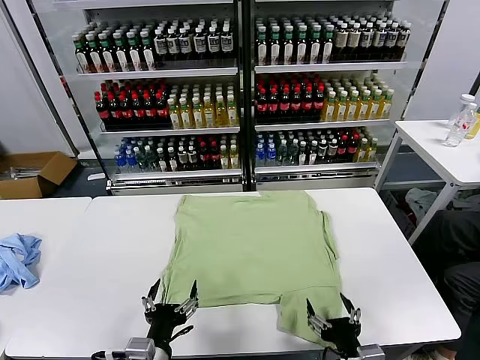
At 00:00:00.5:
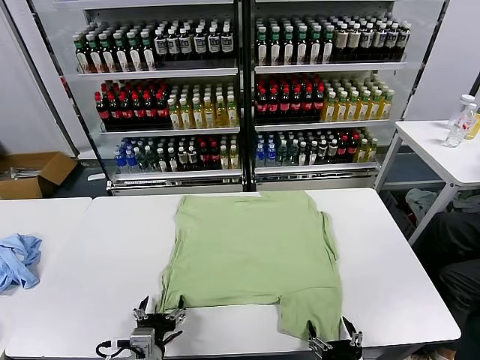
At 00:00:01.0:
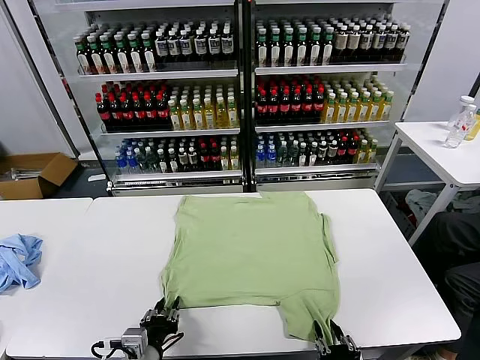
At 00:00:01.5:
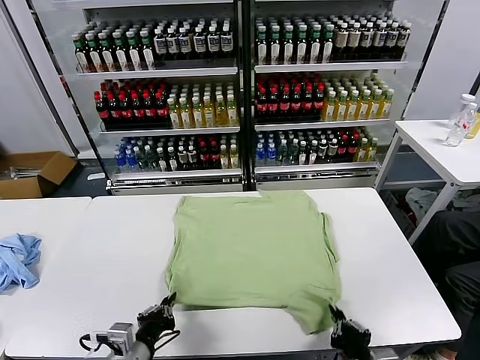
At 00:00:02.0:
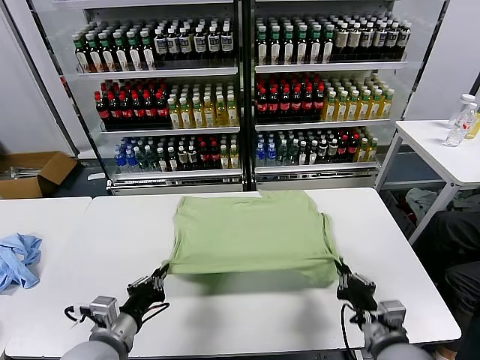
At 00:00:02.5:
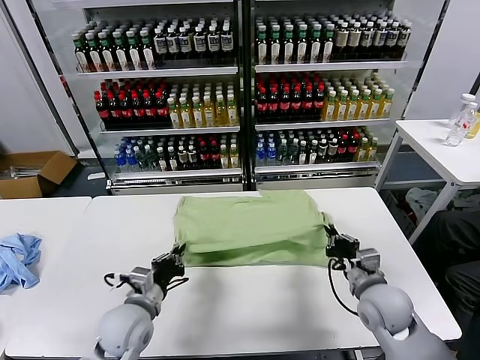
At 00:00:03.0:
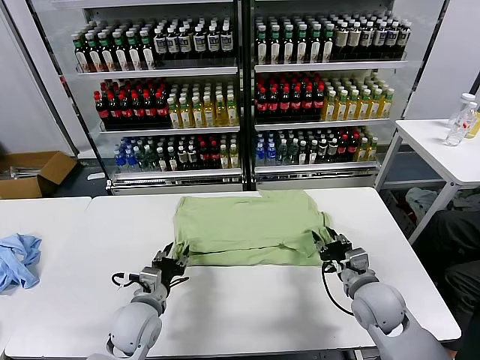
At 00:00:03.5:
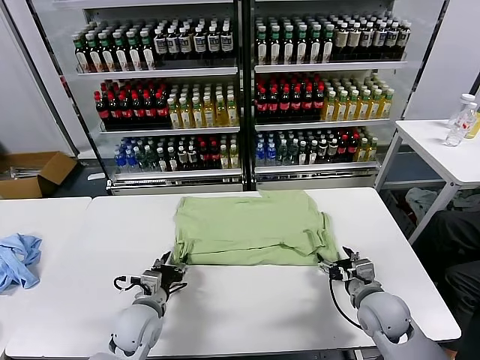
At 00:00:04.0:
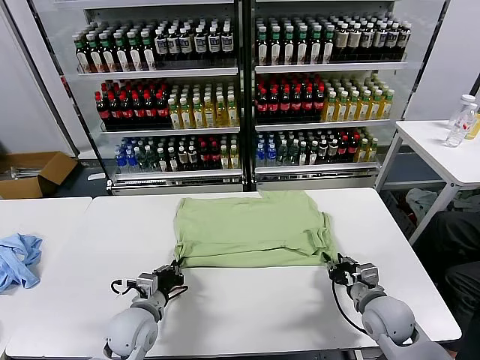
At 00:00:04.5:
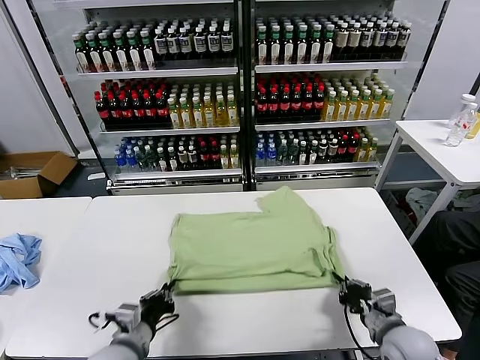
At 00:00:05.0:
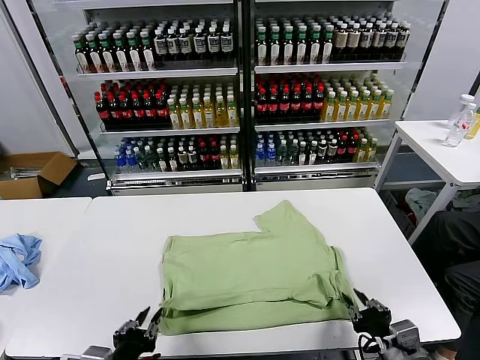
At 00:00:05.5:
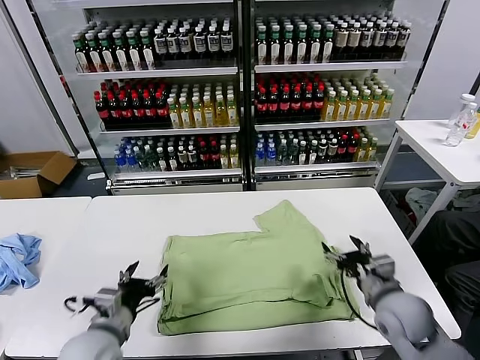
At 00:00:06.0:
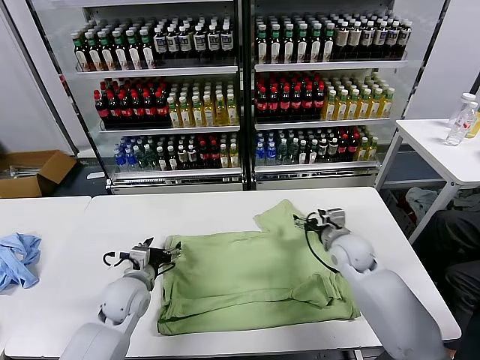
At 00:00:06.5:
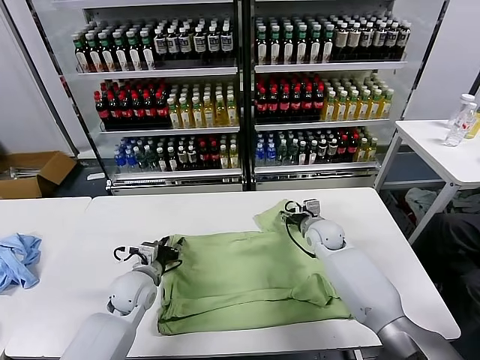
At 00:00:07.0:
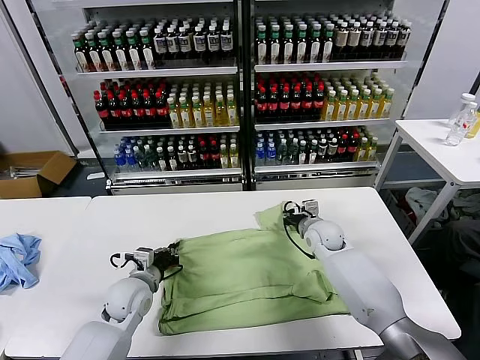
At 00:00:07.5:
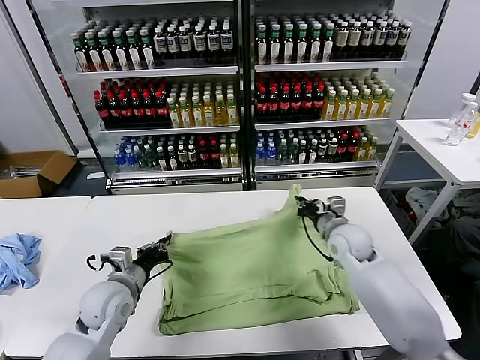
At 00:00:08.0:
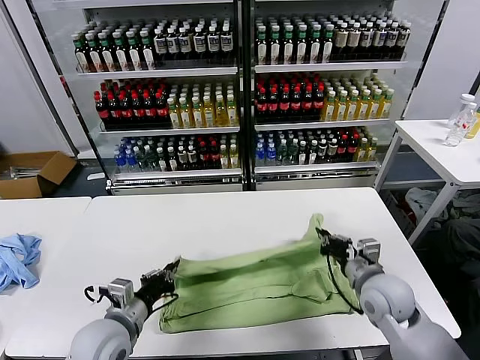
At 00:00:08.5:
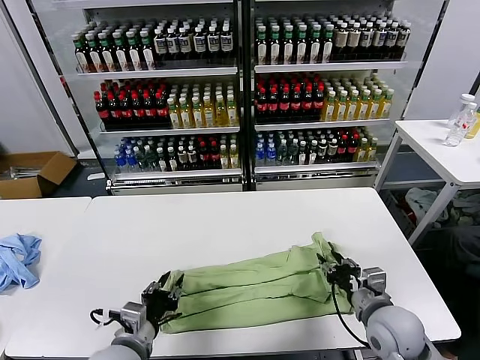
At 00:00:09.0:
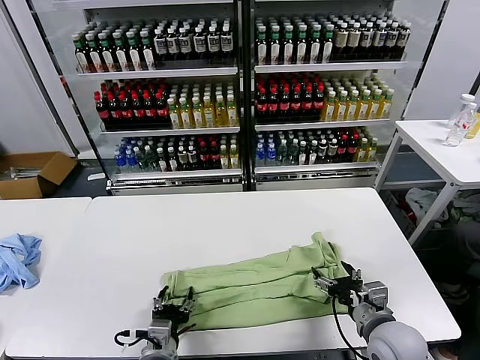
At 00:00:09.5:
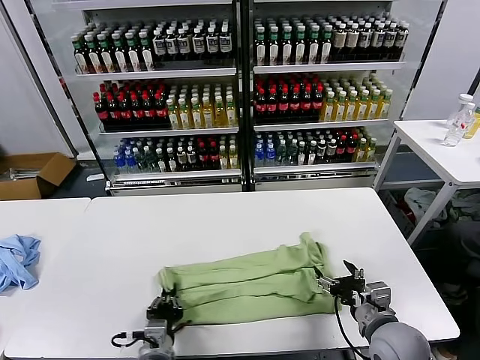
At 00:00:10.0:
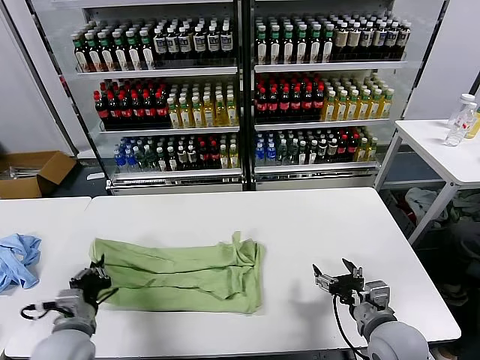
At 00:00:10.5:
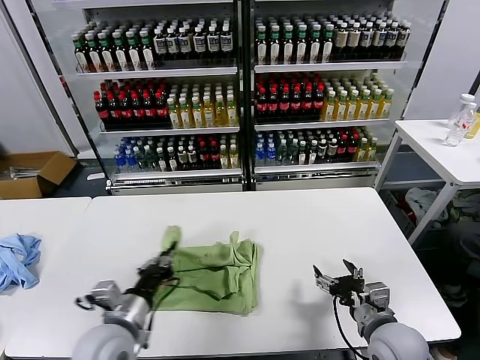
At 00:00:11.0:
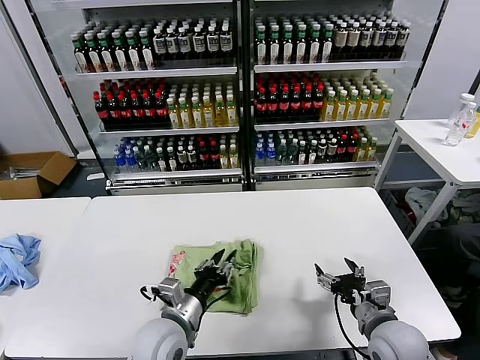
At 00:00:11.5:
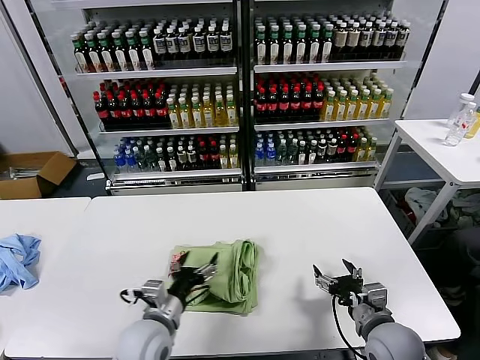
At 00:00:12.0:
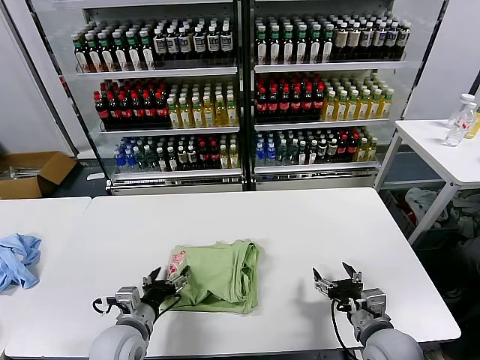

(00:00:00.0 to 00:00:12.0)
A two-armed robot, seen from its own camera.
Task of the whole recording: fold and organize the clothes.
Step, 00:00:00.0 - 00:00:01.0: use both grippers simultaneously to clamp the lower edge of the clothing fabric.
Step, 00:00:01.5 - 00:00:03.0: use both grippers to drag the lower edge of the fabric forward and fold it over the upper edge.
Step, 00:00:03.5 - 00:00:05.0: Drag the clothes downward with both gripper.
Step, 00:00:05.5 - 00:00:07.0: use both grippers simultaneously to clamp the upper edge of the clothing fabric.
Step, 00:00:07.5 - 00:00:08.0: use both grippers to drag the upper edge of the fabric backward and fold it over the lower edge.
Step, 00:00:08.5 - 00:00:09.5: use the left gripper to clamp the left edge of the fabric.
Step, 00:00:10.0 - 00:00:11.0: use the left gripper to drag the left edge of the fabric to the left and folds it over the right edge.
00:00:02.0 - 00:00:04.0: The left gripper goes about 10 cm downward and forward, and opens, then closes again, while the right gripper heads forward and downward, covering some 10 cm, and opens, then closes once more.
00:00:04.0 - 00:00:06.0: The right gripper heads forward and to the left, covering approximately 20 cm, and opens, while the left gripper goes backward and returns, roughly 15 cm each way, and opens.
00:00:06.0 - 00:00:08.0: The grippers both shift backward by approximately 15 cm. The left gripper closes, while the right gripper closes.
00:00:08.0 - 00:00:10.0: The right gripper shifts some 5 cm backward, and opens its fingers. Meanwhile the left gripper is displaced to the left by roughly 5 cm, and opens and closes again.
00:00:10.0 - 00:00:12.0: The left gripper shifts some 10 cm to the right, and opens its fingers.

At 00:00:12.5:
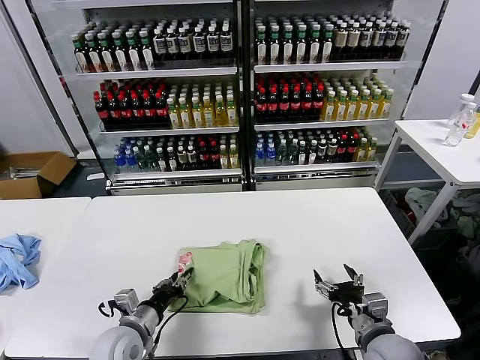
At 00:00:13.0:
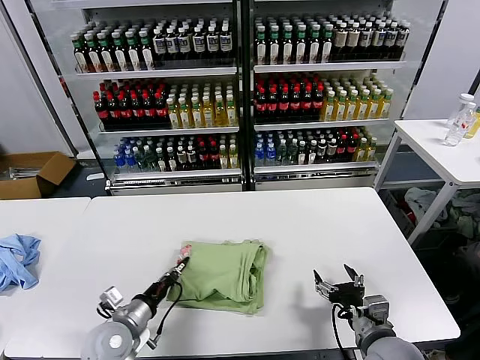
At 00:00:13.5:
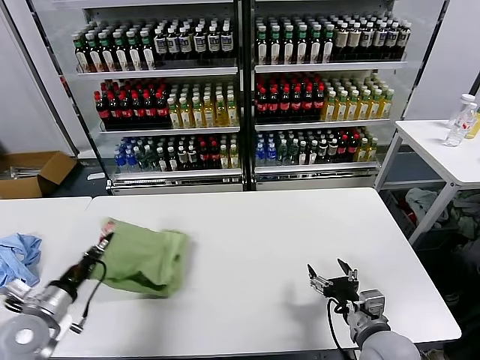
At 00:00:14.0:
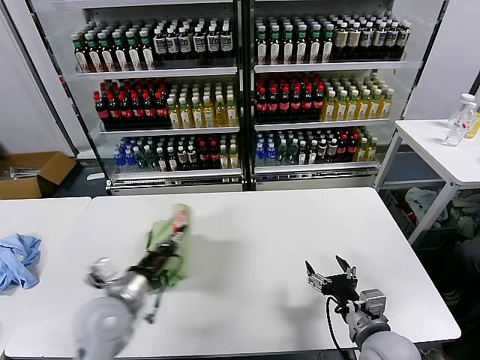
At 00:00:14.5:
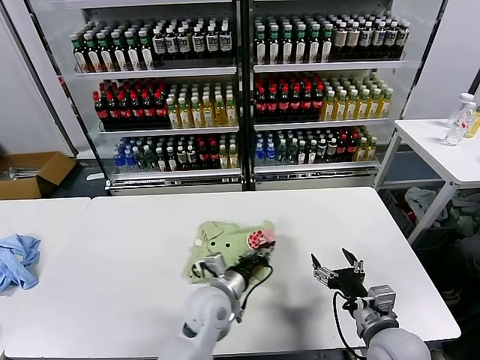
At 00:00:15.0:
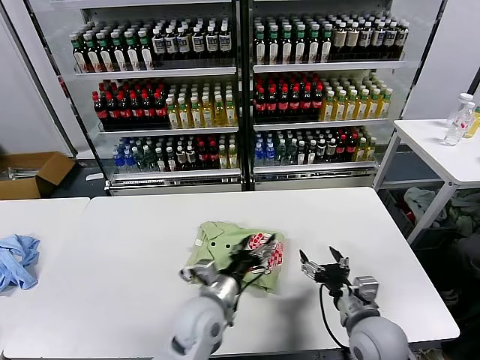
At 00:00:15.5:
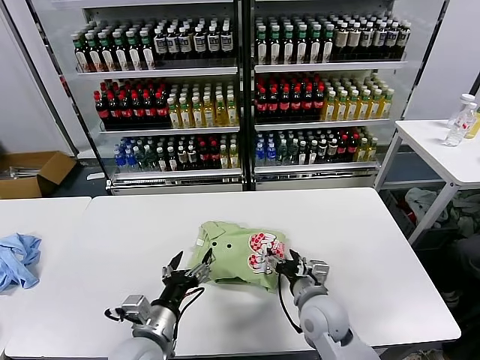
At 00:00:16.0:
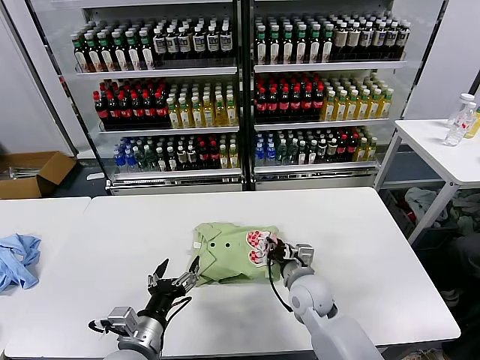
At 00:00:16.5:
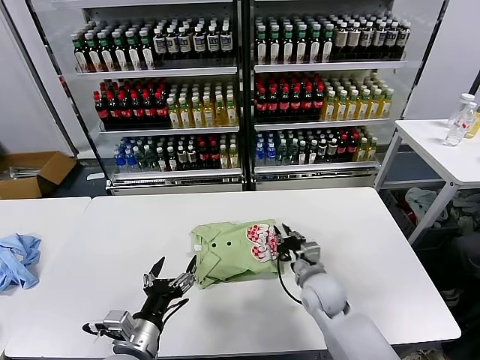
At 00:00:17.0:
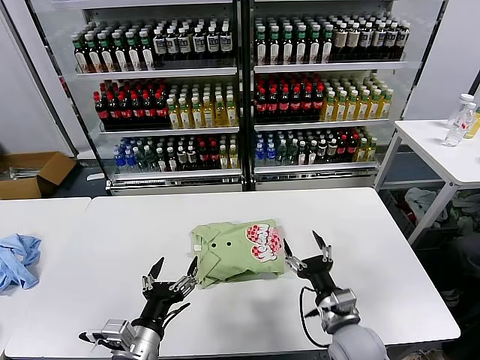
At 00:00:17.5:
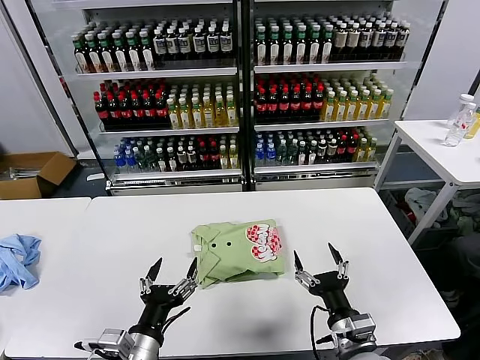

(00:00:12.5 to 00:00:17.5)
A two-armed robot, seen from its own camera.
Task of the whole recording: fold and organize the clothes.
Step, 00:00:12.5 - 00:00:14.5: Flip the folded clothes over with left gripper.
Step, 00:00:15.0 - 00:00:16.5: Drag the clothes to the center of the table.
00:00:12.5 - 00:00:15.0: The left gripper travels to the right by about 20 cm, and opens its fingers.
00:00:15.0 - 00:00:17.5: The left gripper moves backward and to the left, roughly 20 cm. Meanwhile the right gripper moves some 15 cm forward and comes back, and closes and opens again.
